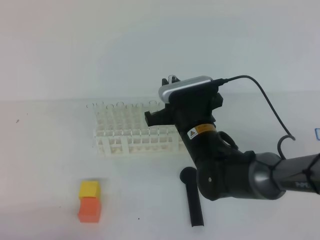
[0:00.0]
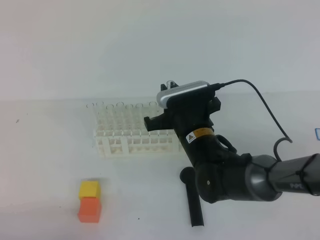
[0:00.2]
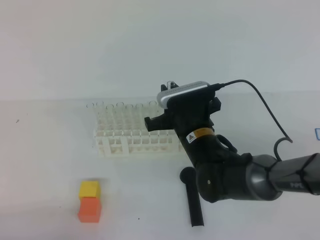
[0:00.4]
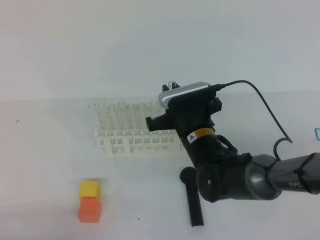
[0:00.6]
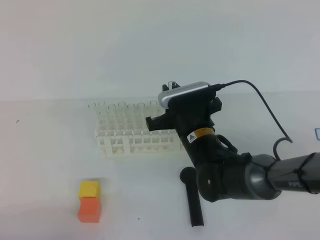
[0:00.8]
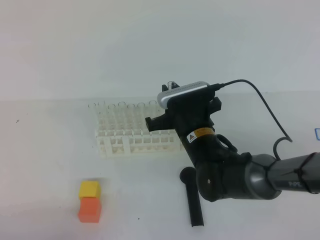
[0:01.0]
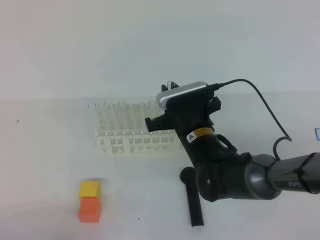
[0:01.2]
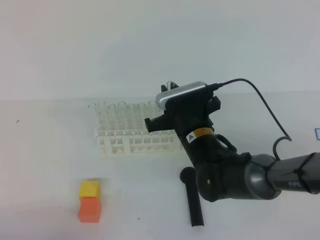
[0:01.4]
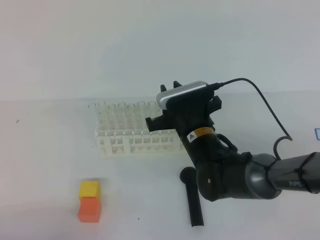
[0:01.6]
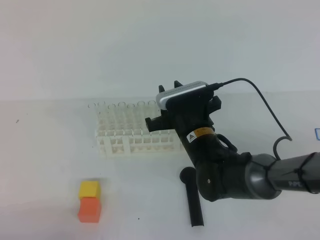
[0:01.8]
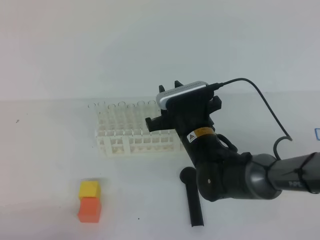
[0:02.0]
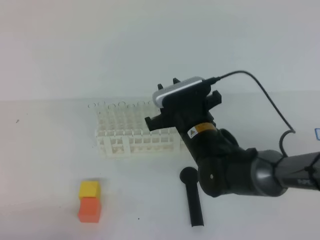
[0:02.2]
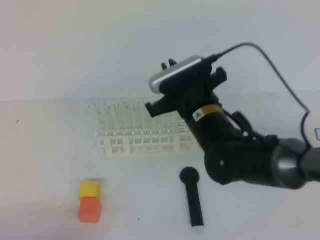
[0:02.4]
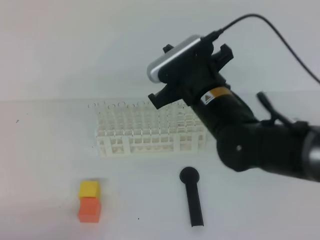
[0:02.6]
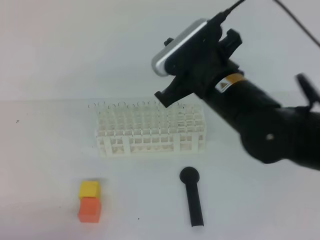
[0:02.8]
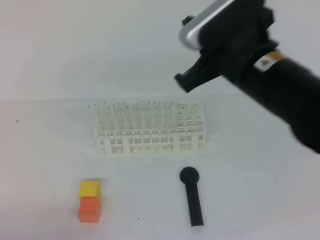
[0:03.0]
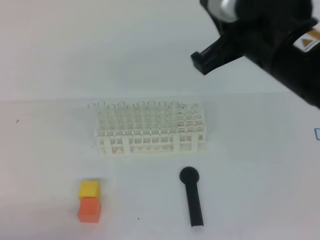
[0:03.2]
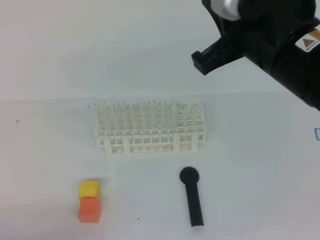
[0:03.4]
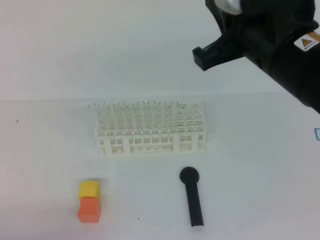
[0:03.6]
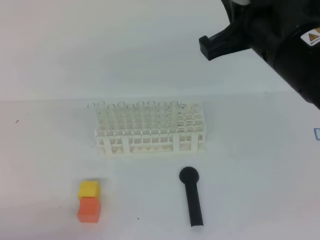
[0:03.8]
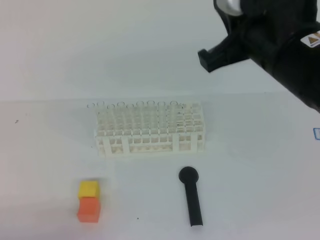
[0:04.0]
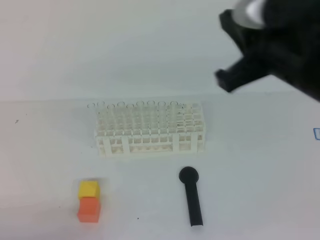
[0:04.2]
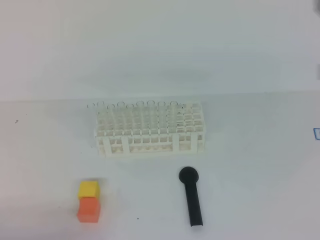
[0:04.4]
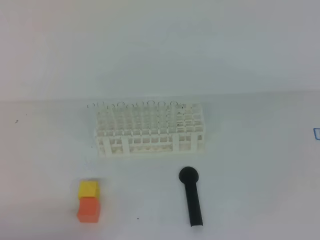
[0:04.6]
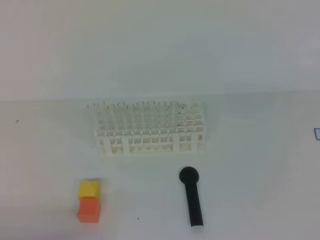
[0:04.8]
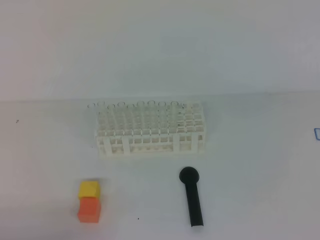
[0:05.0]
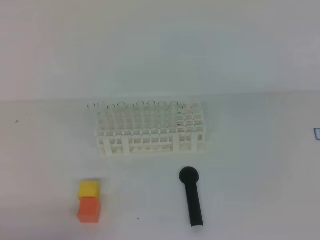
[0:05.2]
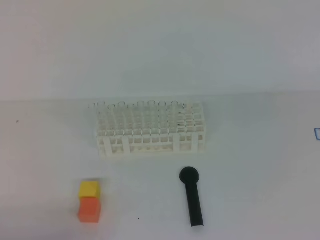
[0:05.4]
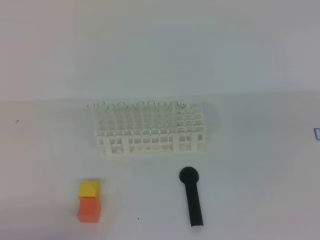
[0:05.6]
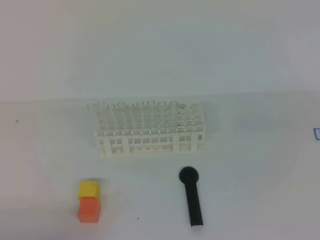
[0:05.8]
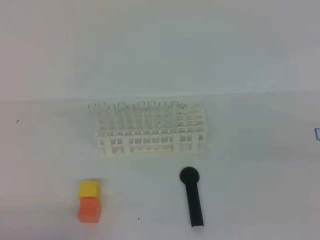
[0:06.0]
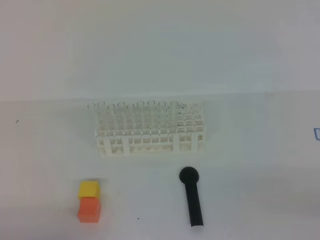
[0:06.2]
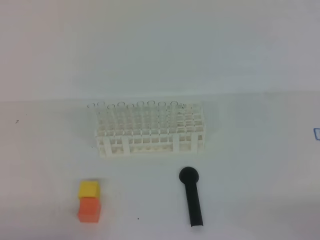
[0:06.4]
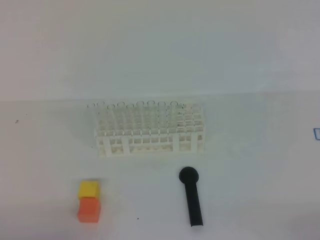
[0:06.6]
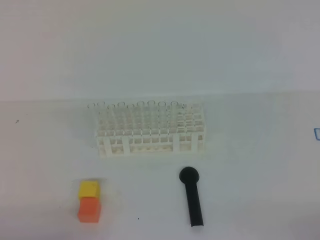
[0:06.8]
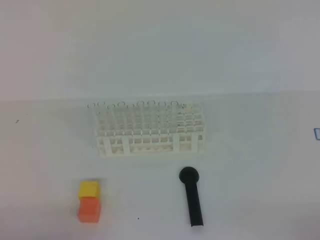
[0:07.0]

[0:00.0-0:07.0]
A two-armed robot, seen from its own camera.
0:00.0 to 0:01.4: The grippers move only a little.
0:01.4 to 0:02.8: The right gripper goes about 15 cm upward, and closes.
0:02.8 to 0:04.2: The right gripper goes roughly 15 cm to the right, upward and backward.
0:04.2 to 0:05.6: The right gripper goes approximately 20 cm to the right and backward.

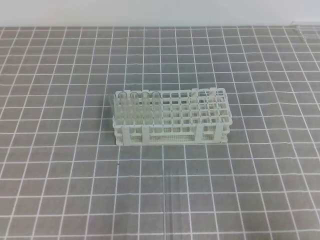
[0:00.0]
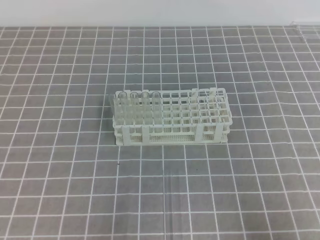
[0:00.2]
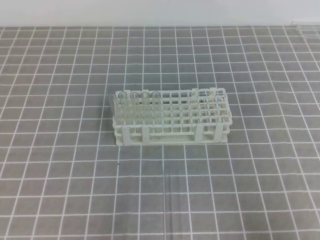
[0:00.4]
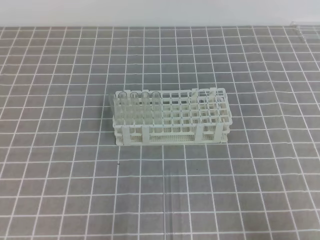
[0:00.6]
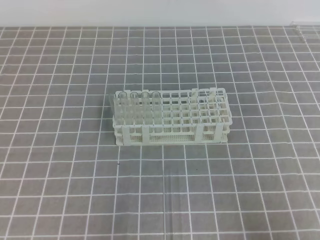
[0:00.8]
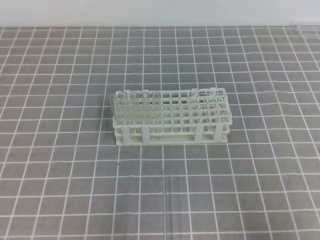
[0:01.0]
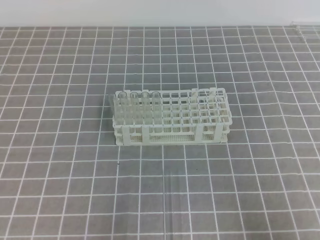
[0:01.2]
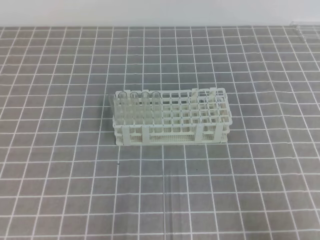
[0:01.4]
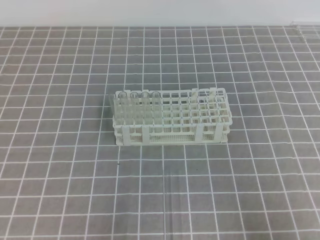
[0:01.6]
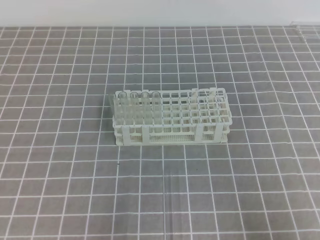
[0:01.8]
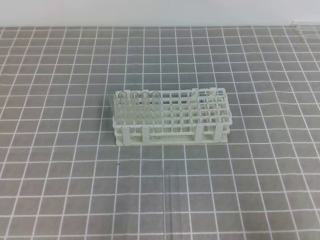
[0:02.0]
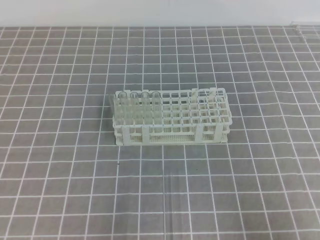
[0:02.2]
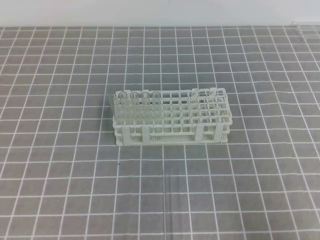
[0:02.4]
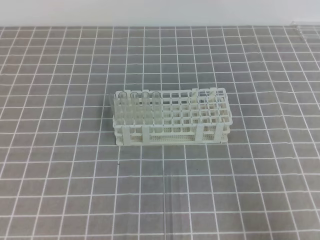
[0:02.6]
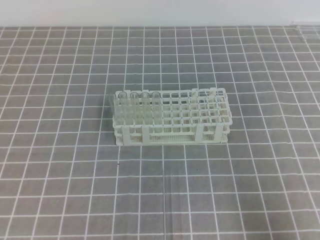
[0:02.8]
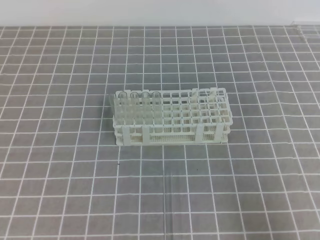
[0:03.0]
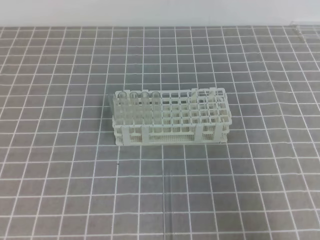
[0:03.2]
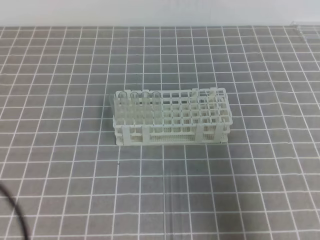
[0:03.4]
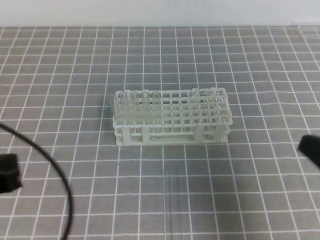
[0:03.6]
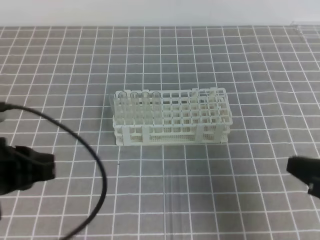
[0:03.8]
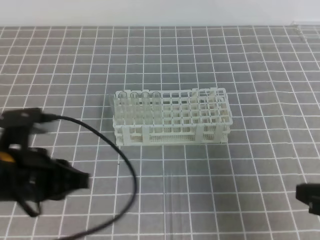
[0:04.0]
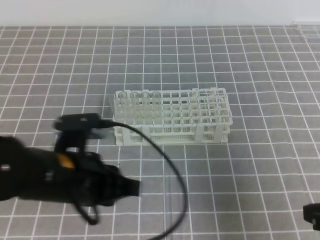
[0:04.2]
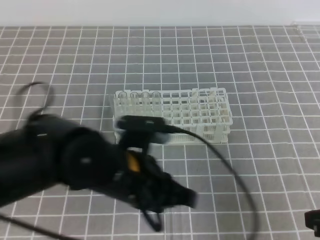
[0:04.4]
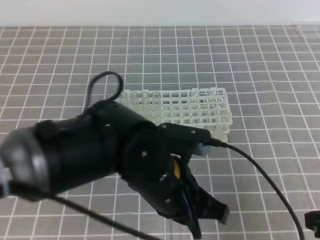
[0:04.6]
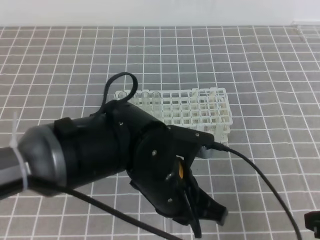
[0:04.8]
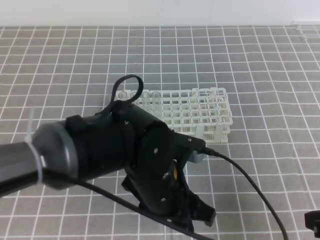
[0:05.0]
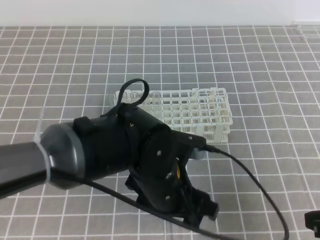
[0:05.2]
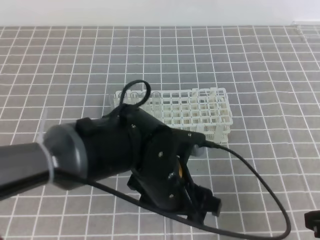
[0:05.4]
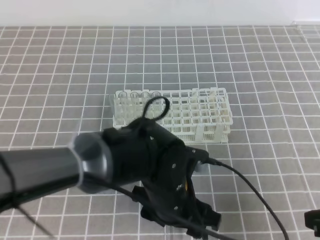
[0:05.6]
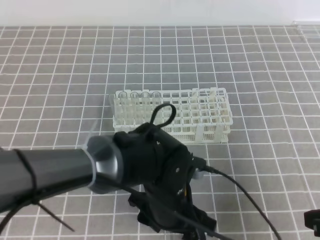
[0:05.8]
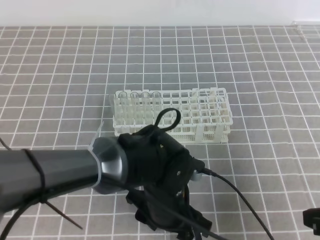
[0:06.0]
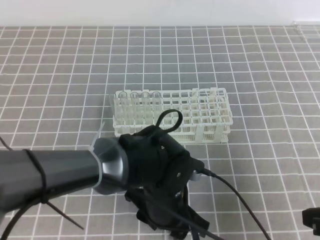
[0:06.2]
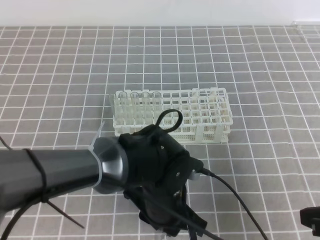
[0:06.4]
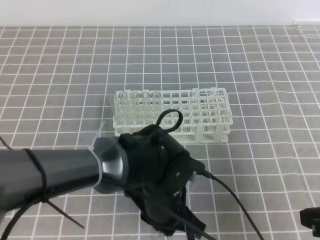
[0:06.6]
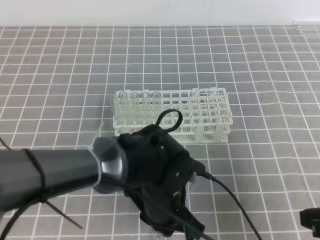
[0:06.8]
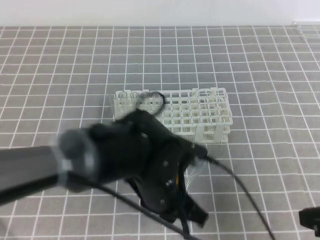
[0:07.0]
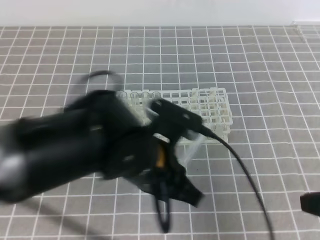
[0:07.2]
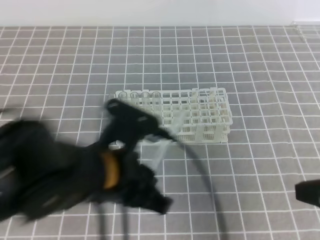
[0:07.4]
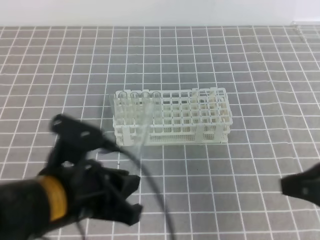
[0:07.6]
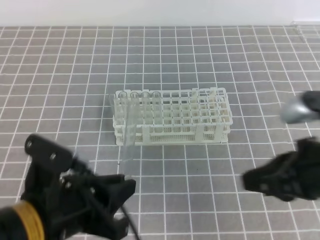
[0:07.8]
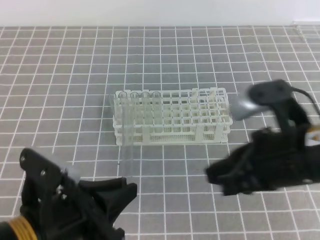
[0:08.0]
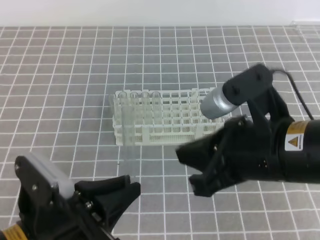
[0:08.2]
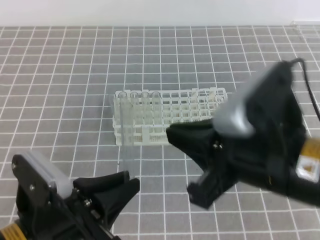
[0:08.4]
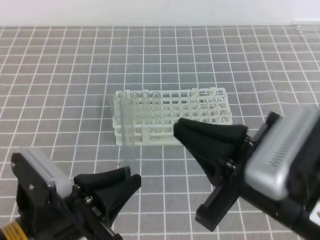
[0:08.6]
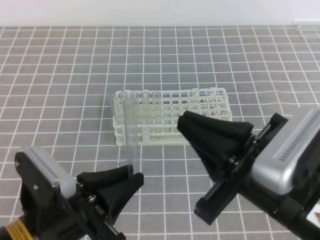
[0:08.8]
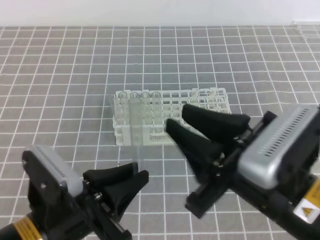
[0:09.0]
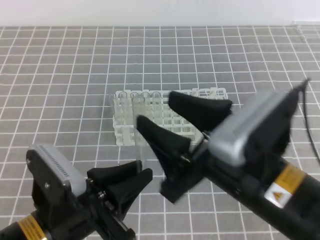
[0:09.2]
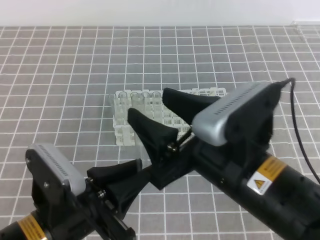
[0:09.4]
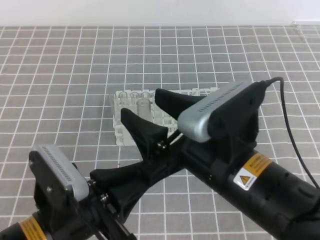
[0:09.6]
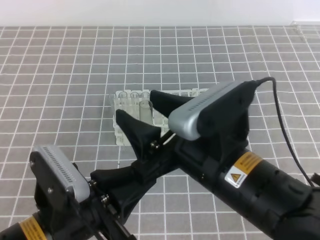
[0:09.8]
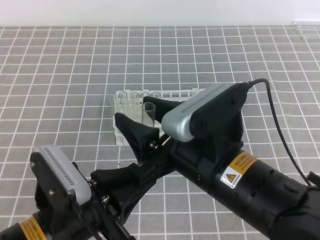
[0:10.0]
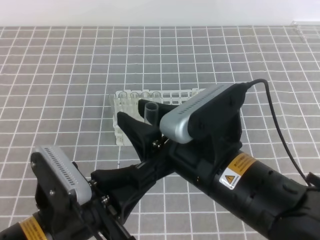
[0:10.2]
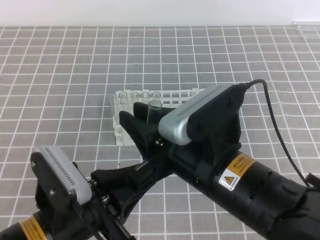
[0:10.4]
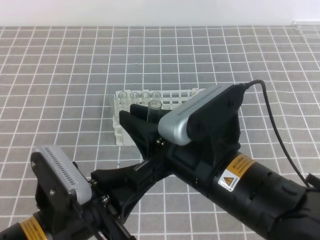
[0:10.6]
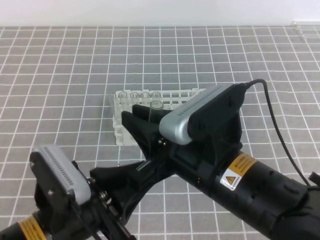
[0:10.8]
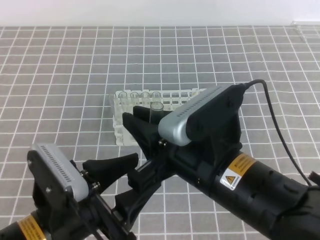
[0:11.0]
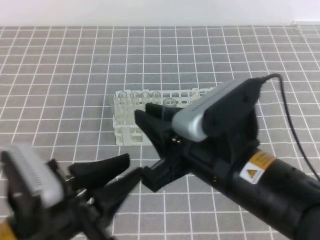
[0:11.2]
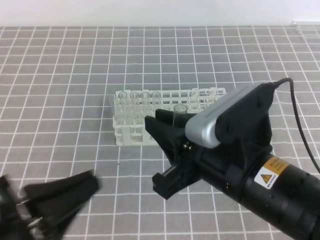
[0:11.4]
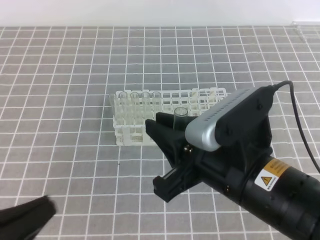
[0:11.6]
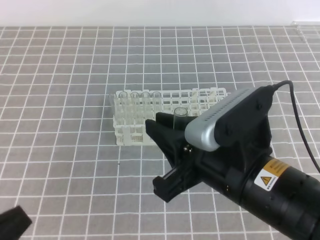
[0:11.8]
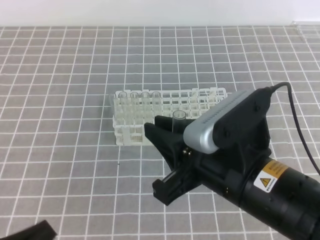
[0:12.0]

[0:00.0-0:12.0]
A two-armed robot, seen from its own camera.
0:00.0 to 0:01.6: Neither gripper changes place.
0:03.0 to 0:04.4: The right gripper moves forward, approximately 5 cm. The left gripper shifts some 25 cm to the right and forward.
0:04.4 to 0:06.0: The left gripper is displaced downward and to the right by roughly 10 cm, and opens up.
0:06.0 to 0:07.6: The right gripper heads upward, covering approximately 5 cm. Meanwhile the left gripper moves to the left and upward, roughly 15 cm, and closes.
0:07.6 to 0:09.0: The left gripper moves roughly 5 cm, while the right gripper is displaced to the left by roughly 10 cm, and opens its fingers.
0:09.0 to 0:10.4: The right gripper goes about 5 cm to the left, and opens and closes again.
0:10.4 to 0:12.0: The left gripper goes roughly 15 cm to the left and backward, and opens, then closes once more.

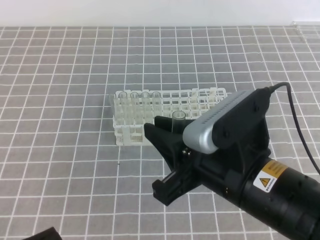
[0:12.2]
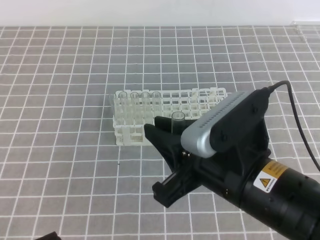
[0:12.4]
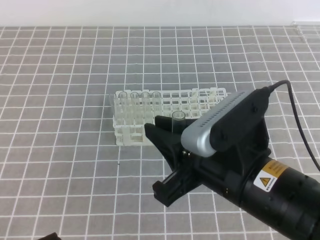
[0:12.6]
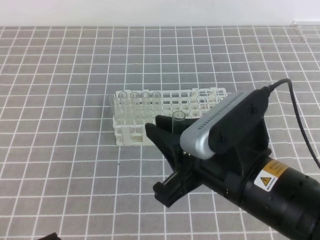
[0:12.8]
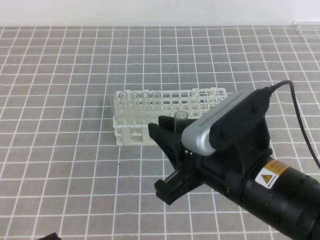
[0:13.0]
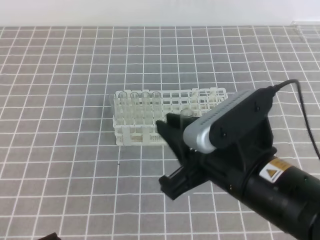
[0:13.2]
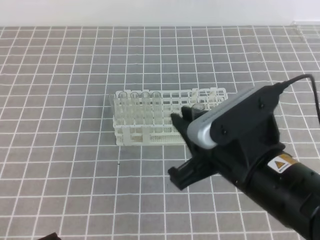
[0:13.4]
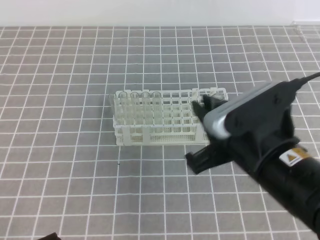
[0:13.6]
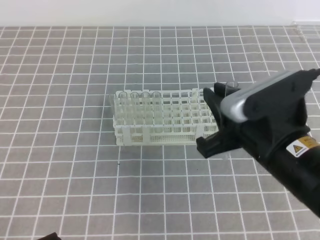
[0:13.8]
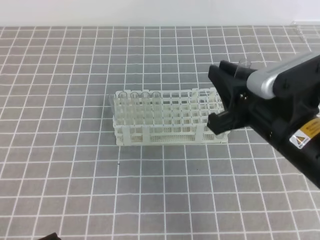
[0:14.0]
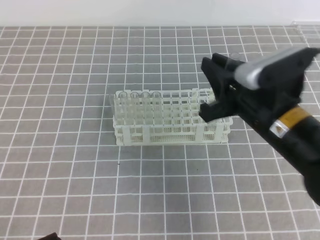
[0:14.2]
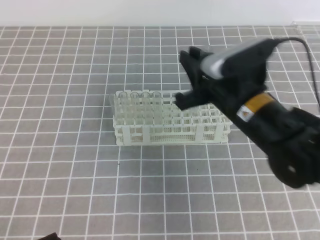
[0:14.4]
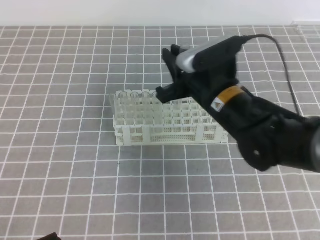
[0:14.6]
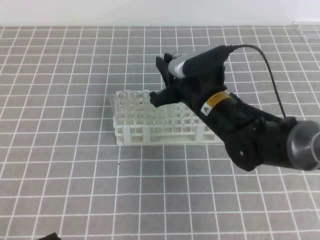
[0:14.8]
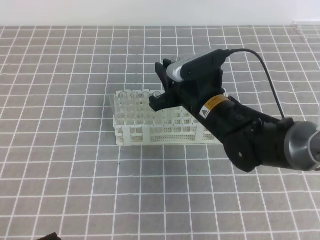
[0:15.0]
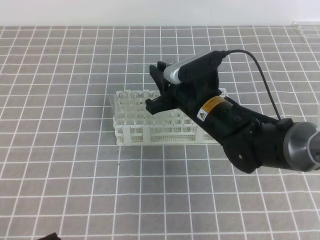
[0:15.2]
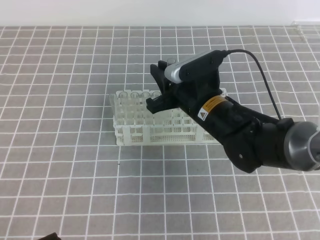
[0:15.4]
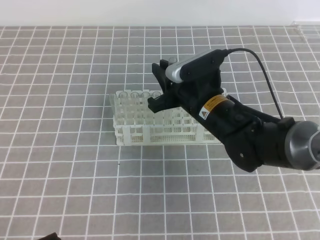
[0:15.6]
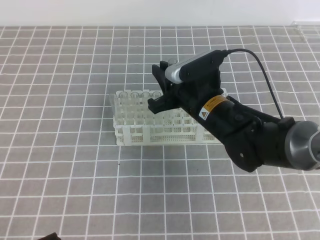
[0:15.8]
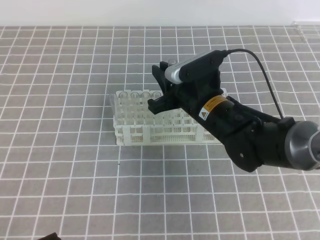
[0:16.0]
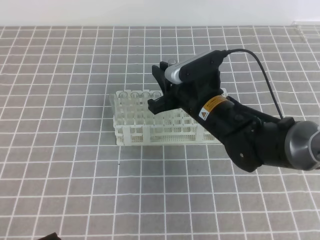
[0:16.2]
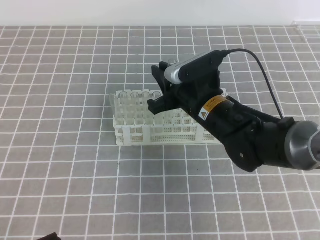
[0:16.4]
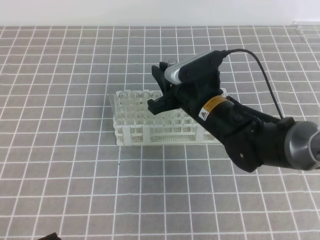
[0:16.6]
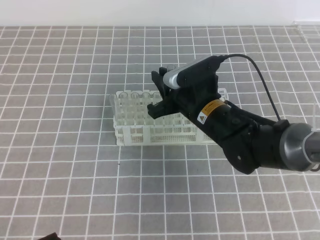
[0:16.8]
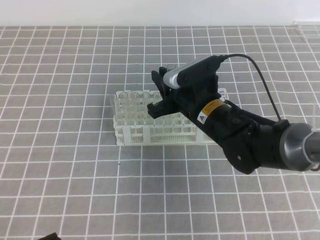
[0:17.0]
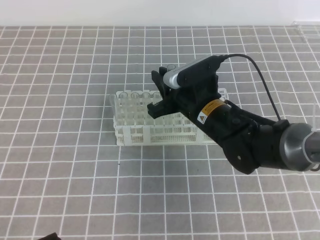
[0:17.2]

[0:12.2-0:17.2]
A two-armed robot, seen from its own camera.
0:12.2 to 0:13.8: The right gripper changes place by some 5 cm.
0:13.8 to 0:15.6: The right gripper goes some 15 cm forward, downward and to the left.
0:15.6 to 0:17.2: Both grippers stay about where they are.
